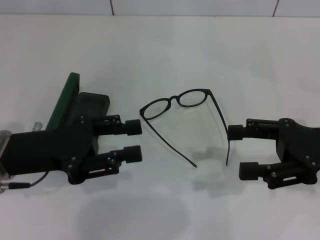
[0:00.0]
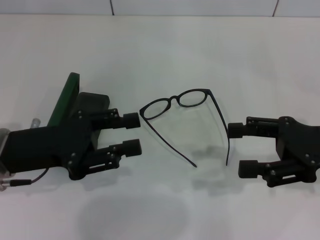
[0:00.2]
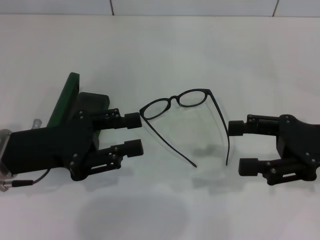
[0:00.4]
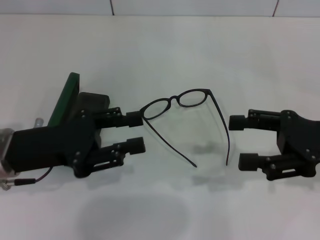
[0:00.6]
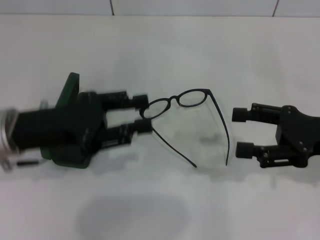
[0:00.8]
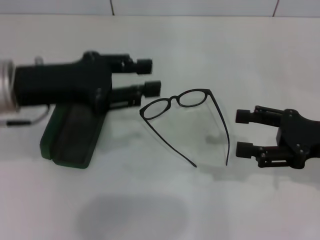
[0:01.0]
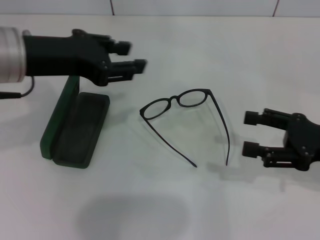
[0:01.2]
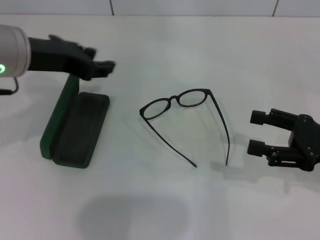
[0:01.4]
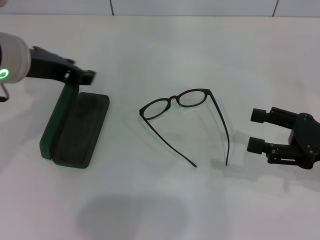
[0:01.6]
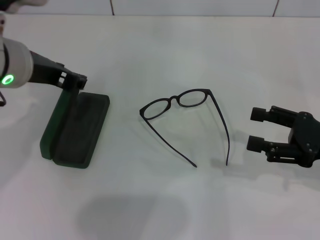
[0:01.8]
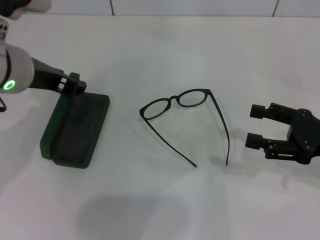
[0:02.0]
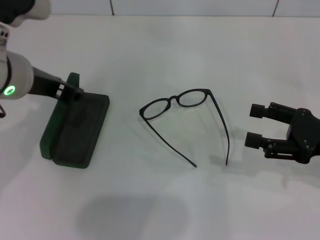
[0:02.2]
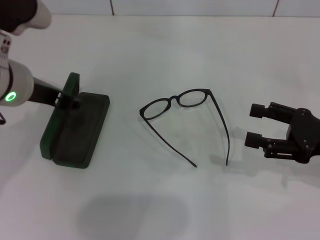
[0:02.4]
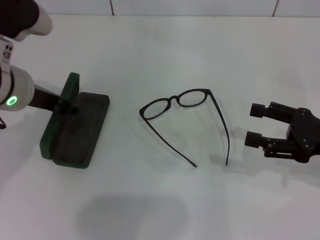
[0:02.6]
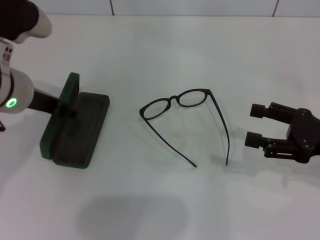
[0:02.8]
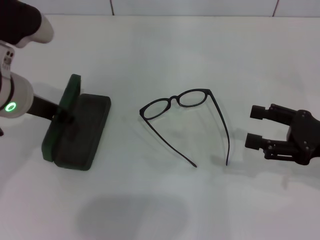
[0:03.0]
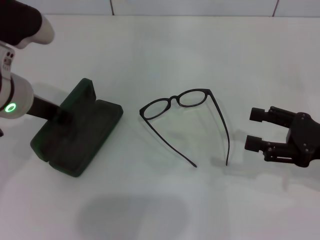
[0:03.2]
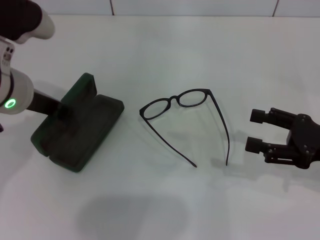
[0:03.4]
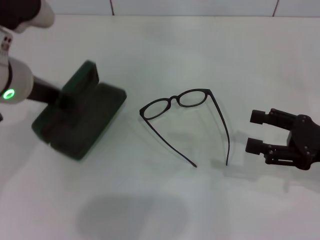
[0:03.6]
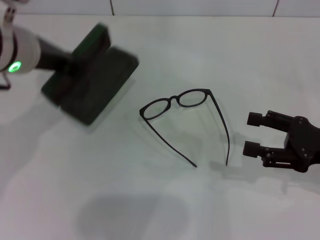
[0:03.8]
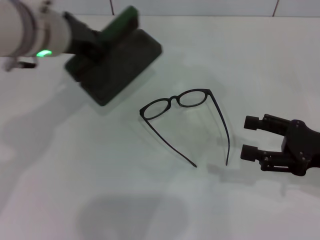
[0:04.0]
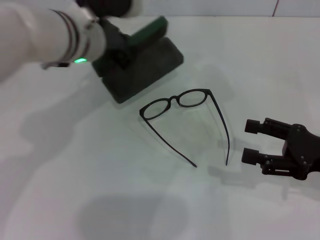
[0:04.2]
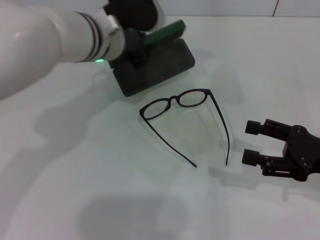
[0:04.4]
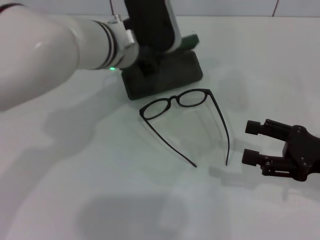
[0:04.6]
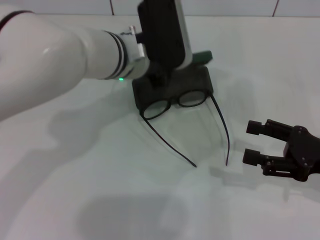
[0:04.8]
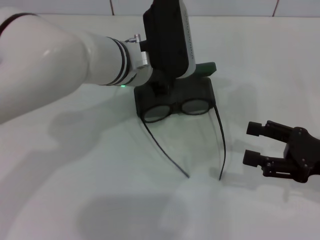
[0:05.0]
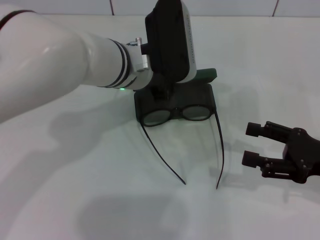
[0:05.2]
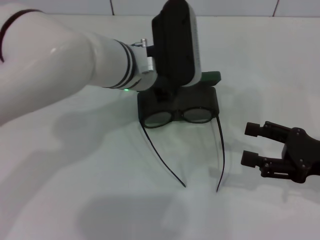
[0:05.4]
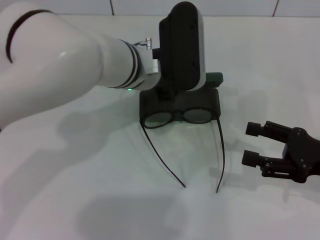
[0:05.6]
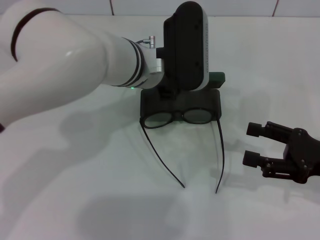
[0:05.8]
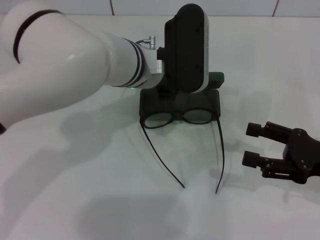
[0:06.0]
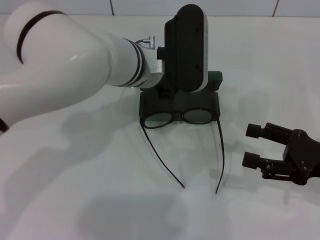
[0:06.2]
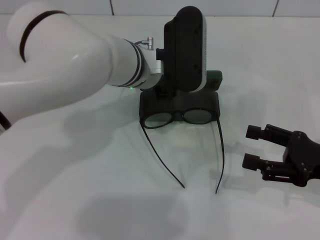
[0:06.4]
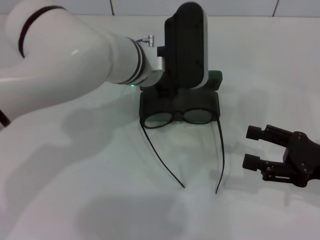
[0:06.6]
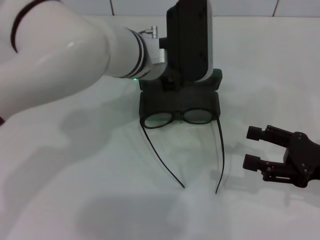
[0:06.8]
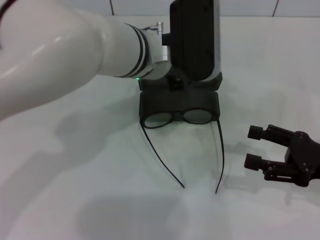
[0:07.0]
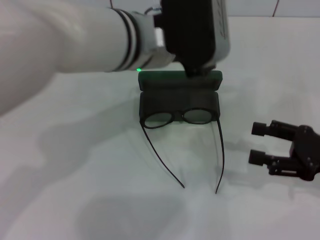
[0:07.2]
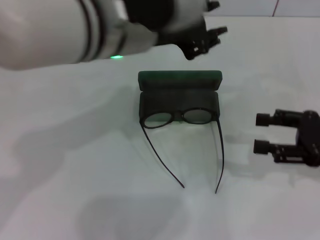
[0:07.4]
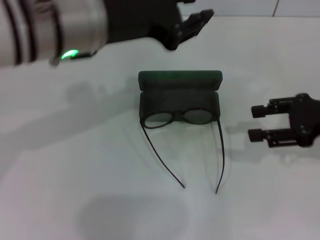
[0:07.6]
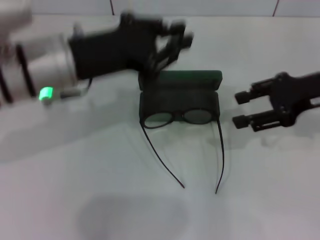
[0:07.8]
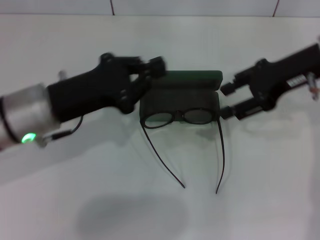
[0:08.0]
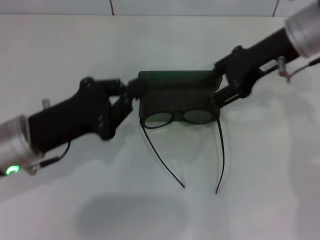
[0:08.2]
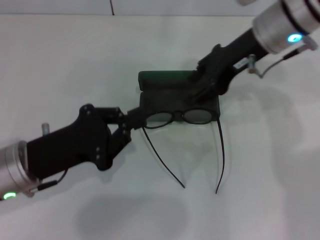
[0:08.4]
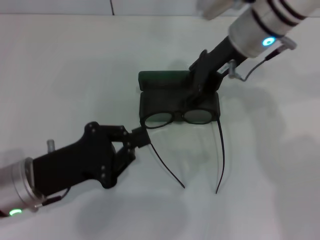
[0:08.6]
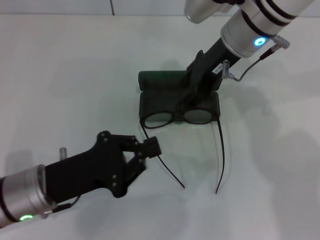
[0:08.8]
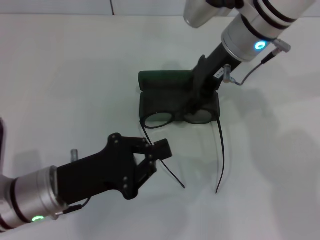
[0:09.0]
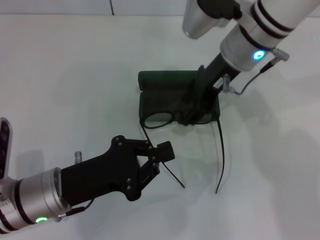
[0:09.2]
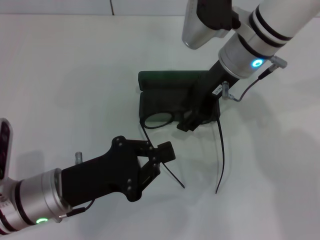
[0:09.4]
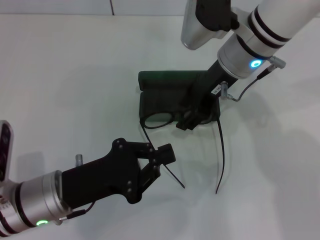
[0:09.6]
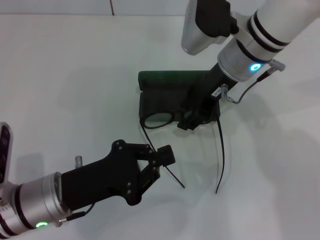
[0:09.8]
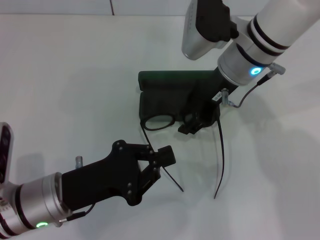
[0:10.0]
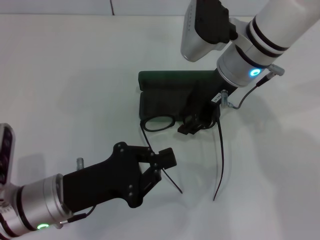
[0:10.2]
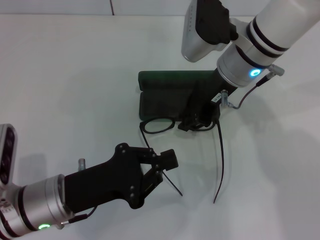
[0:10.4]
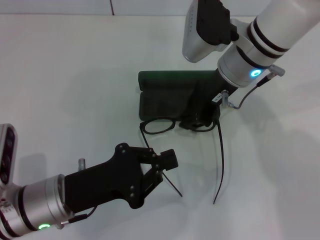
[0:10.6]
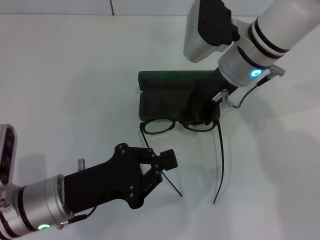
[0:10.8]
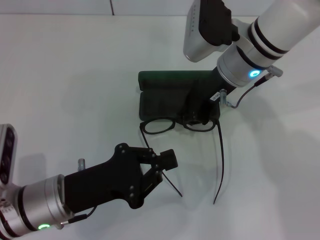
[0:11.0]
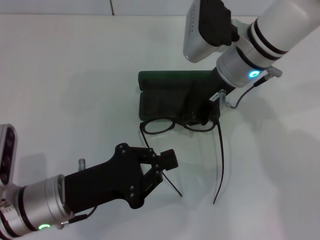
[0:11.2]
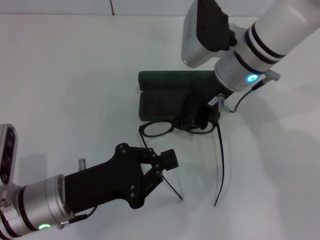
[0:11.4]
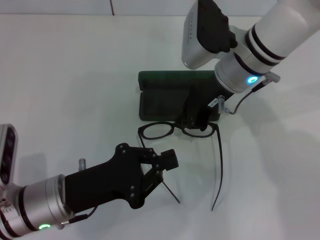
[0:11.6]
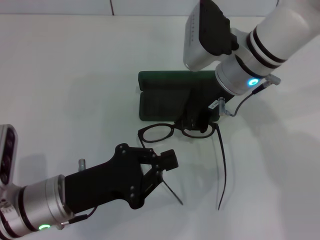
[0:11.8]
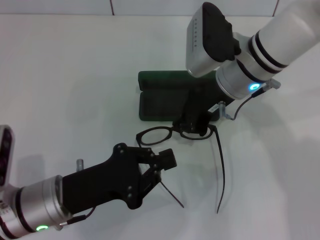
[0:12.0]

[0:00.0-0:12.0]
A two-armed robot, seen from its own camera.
Step, 0:00.0 to 0:03.0: Grab the glasses case with your left hand.
Step, 0:03.2 to 0:06.2: Place the glasses case in the center of the table with your left hand.
Step, 0:06.4 to 0:11.6: Grab the eyeglass frame with your right hand.
0:00.0 to 0:01.6: The left gripper shifts some 10 cm upward and forward.
0:01.6 to 0:03.0: The grippers move only a little.
0:03.0 to 0:04.4: The left gripper moves to the right and forward, roughly 10 cm.
0:04.4 to 0:06.0: The left gripper travels to the right by some 5 cm.
0:06.0 to 0:07.6: The left gripper heads upward, to the left and backward, covering approximately 15 cm. The right gripper shifts roughly 10 cm upward and forward.
0:07.6 to 0:09.0: The left gripper moves downward and backward, some 20 cm, and closes up. The right gripper goes roughly 20 cm to the left and forward.
0:10.4 to 0:12.0: The right gripper closes its fingers.

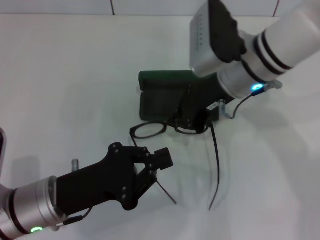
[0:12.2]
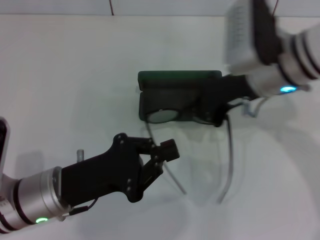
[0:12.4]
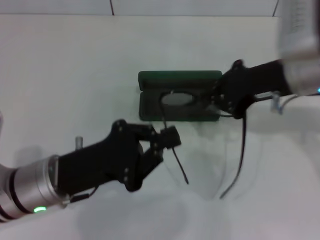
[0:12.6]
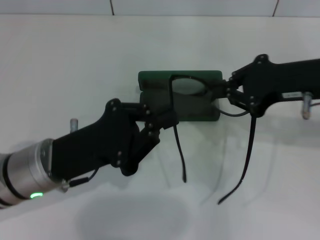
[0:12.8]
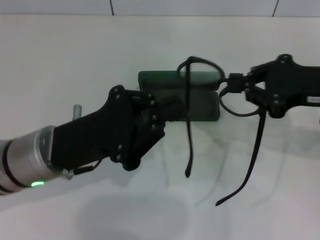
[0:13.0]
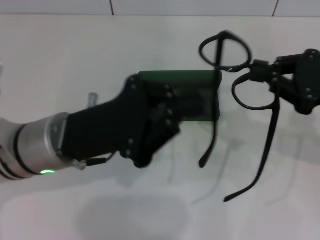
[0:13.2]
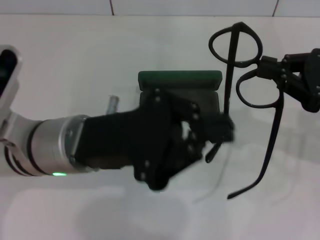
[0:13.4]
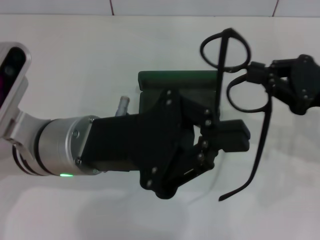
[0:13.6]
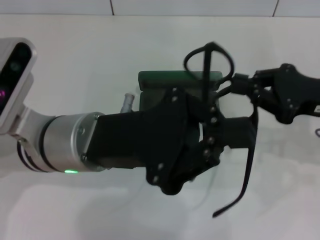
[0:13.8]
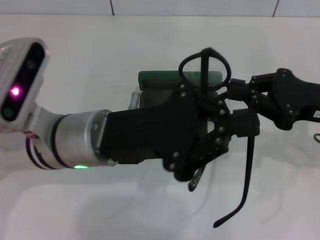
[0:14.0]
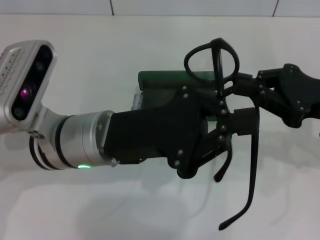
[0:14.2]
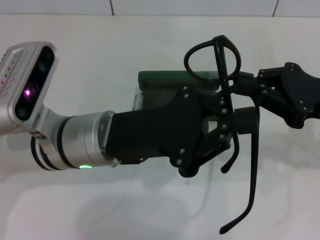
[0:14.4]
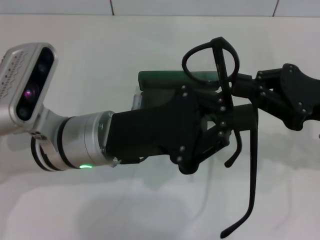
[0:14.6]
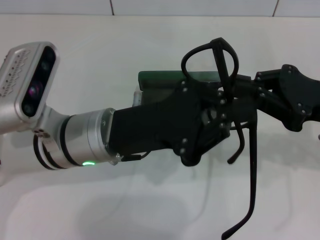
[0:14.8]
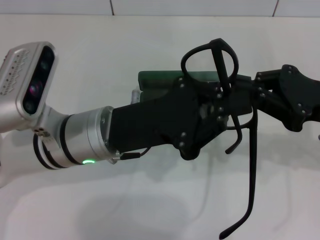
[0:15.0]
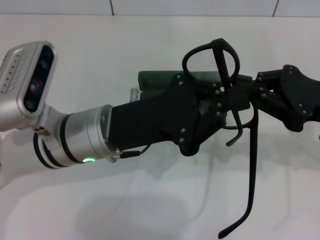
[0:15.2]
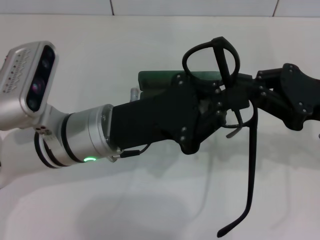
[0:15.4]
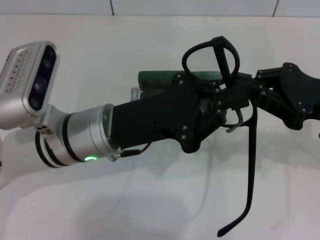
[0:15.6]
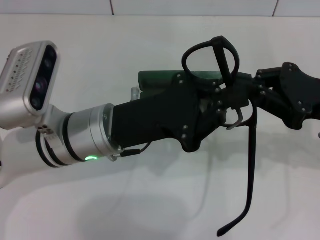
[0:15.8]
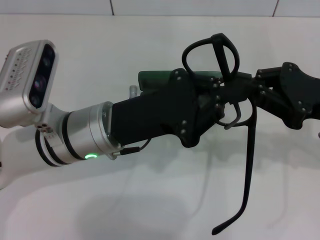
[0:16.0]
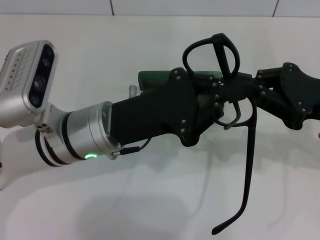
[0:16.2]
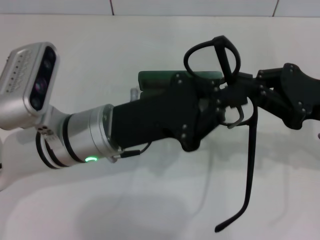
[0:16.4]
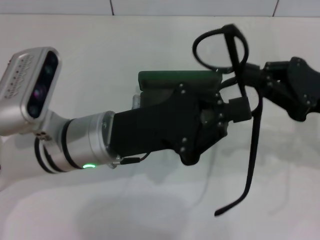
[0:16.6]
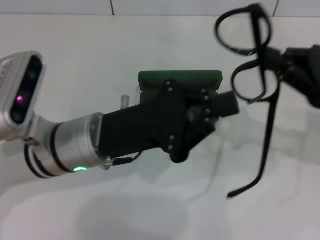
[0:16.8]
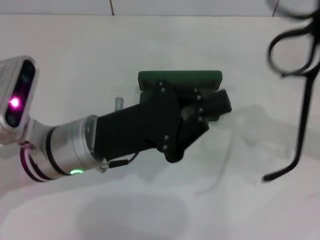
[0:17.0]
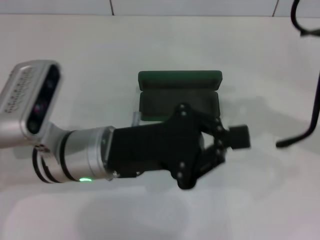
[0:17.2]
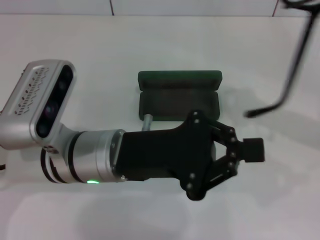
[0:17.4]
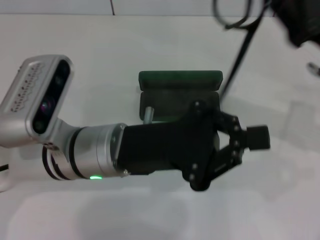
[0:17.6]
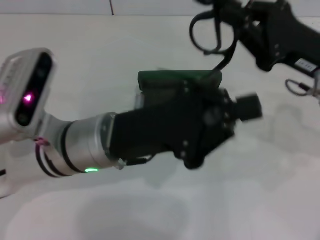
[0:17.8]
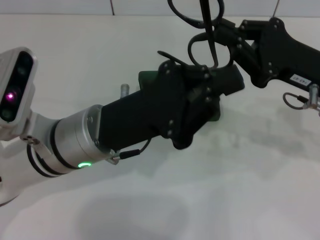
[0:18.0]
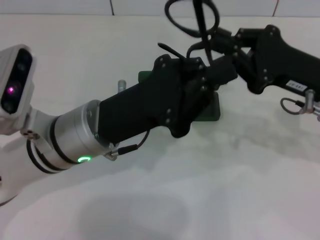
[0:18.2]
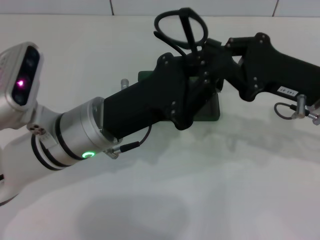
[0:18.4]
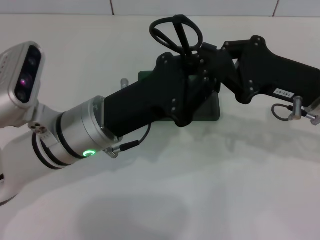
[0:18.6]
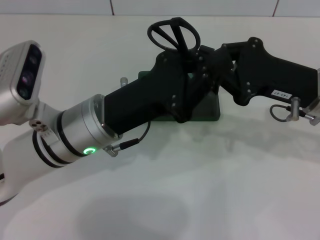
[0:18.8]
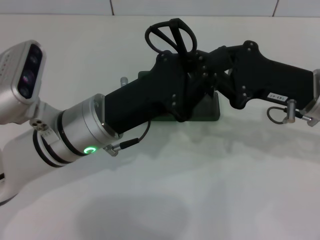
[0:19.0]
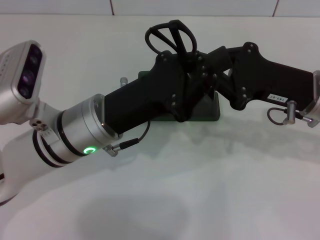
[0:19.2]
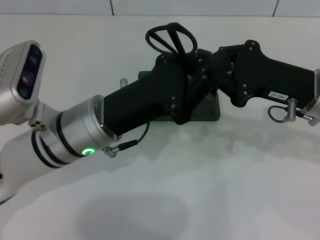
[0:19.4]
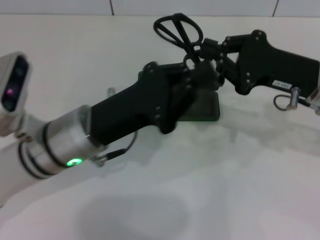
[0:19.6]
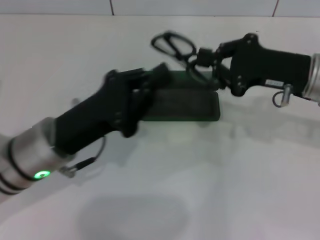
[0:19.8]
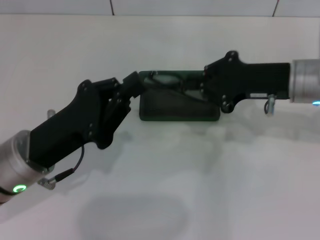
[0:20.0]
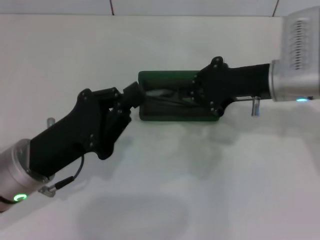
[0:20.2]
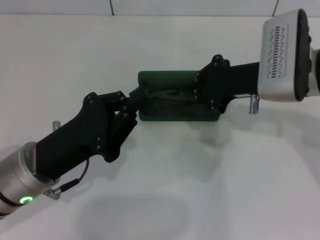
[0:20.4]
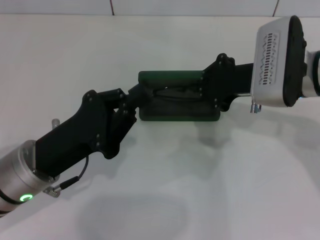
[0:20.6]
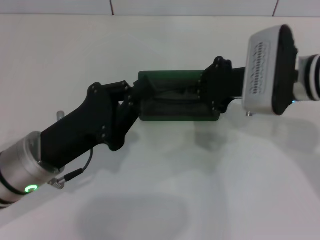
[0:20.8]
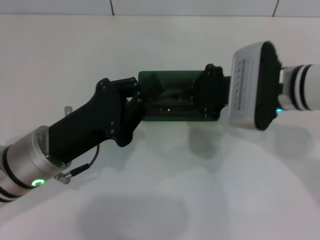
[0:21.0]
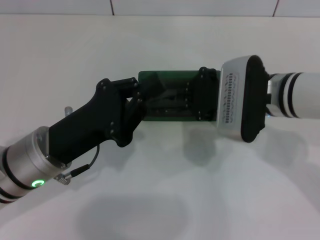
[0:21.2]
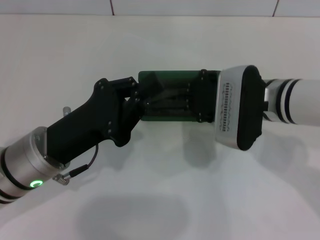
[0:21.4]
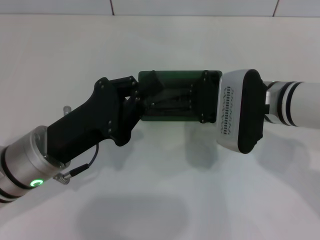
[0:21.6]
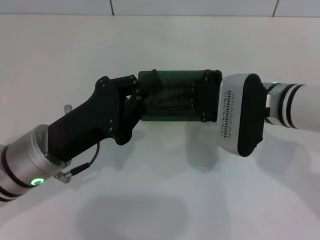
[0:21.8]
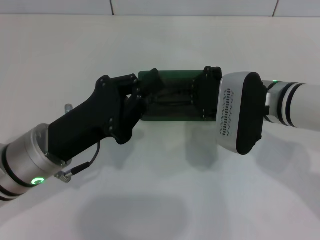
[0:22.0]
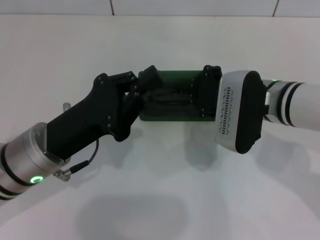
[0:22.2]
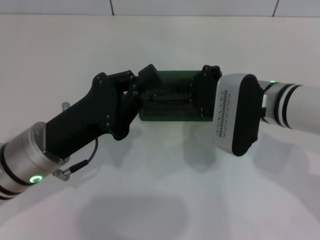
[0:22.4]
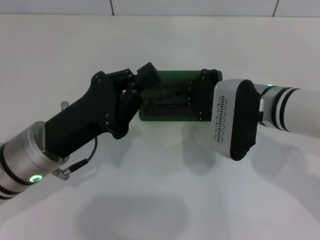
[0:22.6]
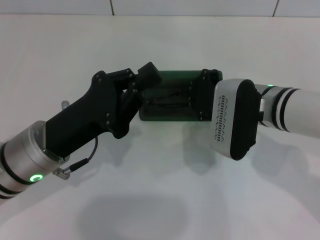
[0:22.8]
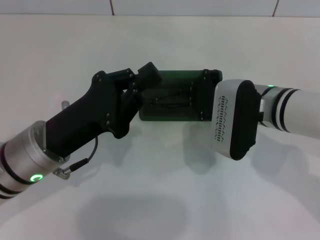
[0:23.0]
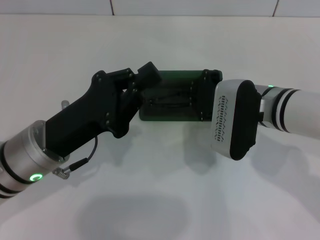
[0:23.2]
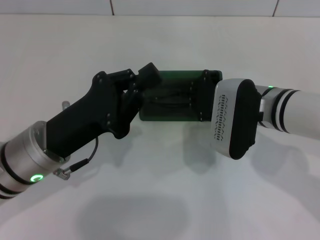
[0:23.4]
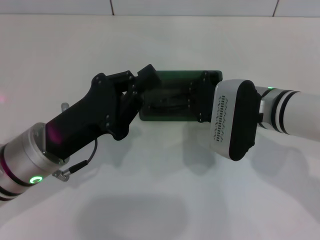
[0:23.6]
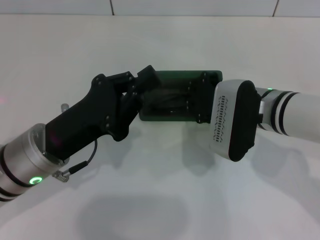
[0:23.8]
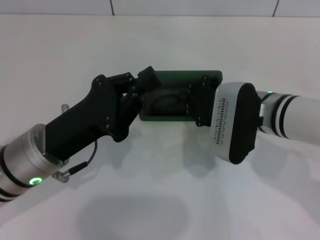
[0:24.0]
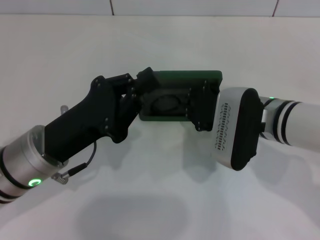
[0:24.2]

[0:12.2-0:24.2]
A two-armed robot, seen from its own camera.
Step, 0:12.2 to 0:18.6: Fold the frame with your left hand.
Step, 0:18.8 to 0:24.0: Put the glasses into the case with your right hand.
0:12.2 to 0:13.8: The left gripper travels upward, to the right and forward by some 15 cm. The right gripper shifts roughly 20 cm to the right and backward.
0:15.2 to 0:16.6: Both grippers stay about where they are.
0:18.2 to 0:19.8: The left gripper shifts some 5 cm to the left.
0:19.8 to 0:21.2: The right gripper heads to the left, covering approximately 10 cm.
0:21.2 to 0:24.2: The grippers stay close to where they were, moving slightly.
